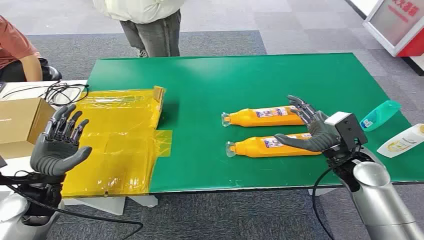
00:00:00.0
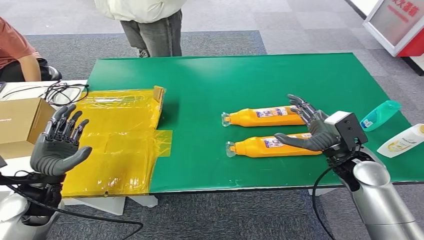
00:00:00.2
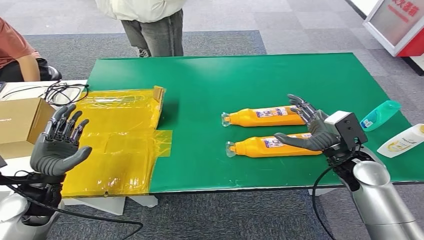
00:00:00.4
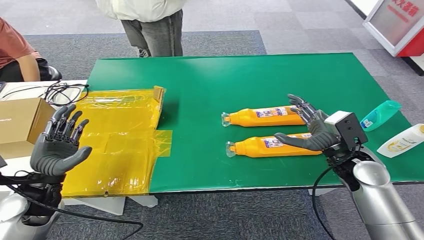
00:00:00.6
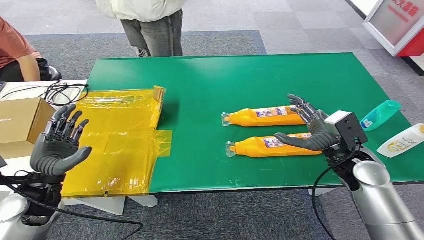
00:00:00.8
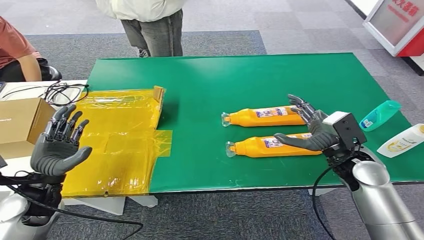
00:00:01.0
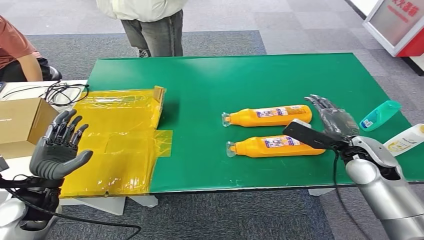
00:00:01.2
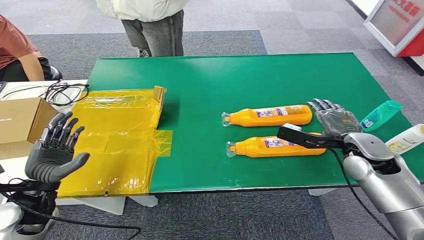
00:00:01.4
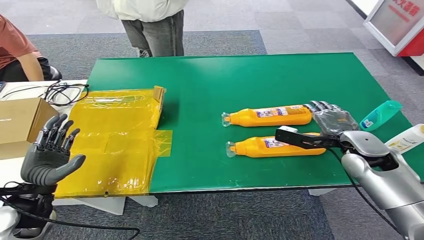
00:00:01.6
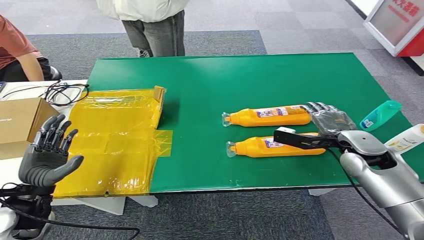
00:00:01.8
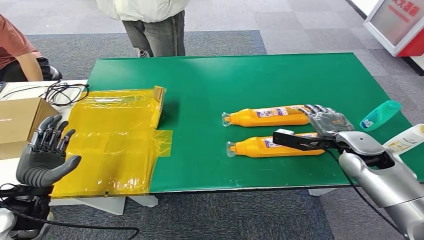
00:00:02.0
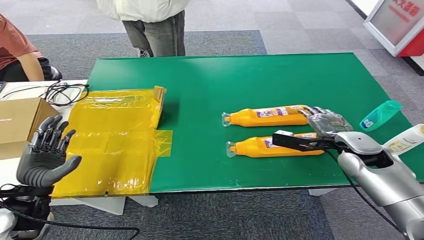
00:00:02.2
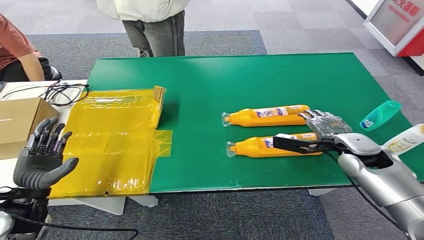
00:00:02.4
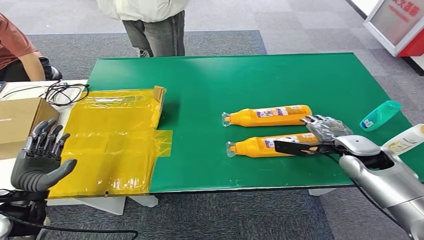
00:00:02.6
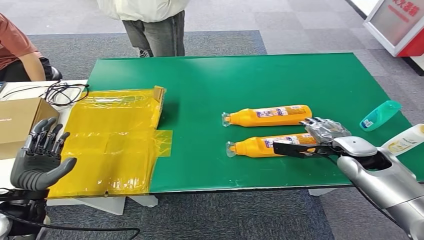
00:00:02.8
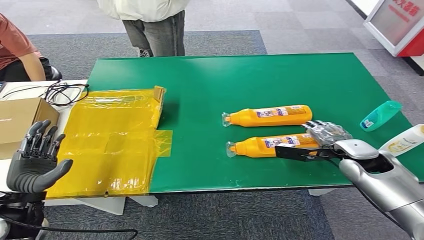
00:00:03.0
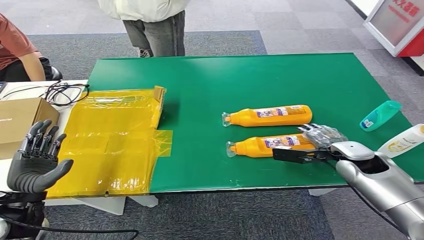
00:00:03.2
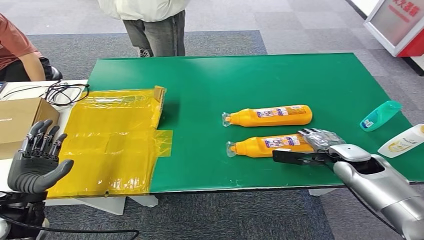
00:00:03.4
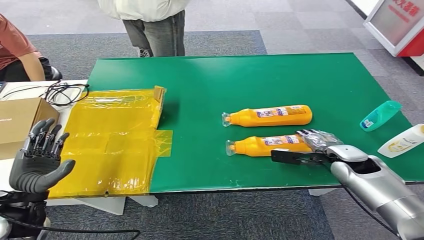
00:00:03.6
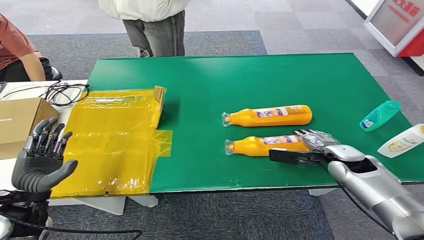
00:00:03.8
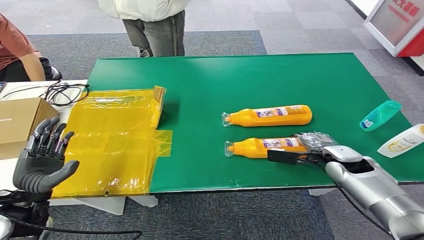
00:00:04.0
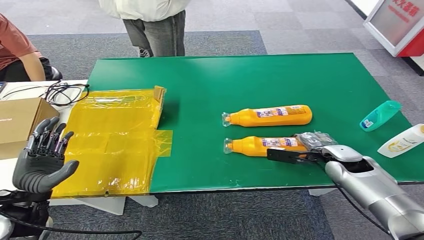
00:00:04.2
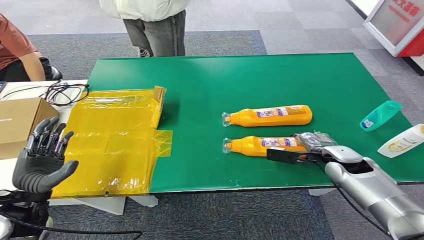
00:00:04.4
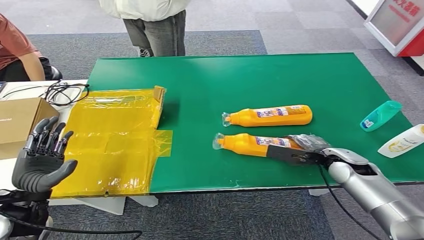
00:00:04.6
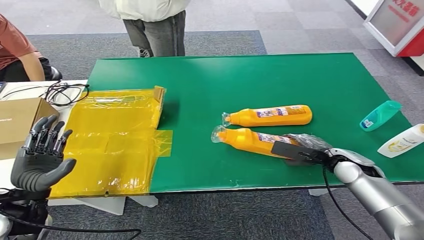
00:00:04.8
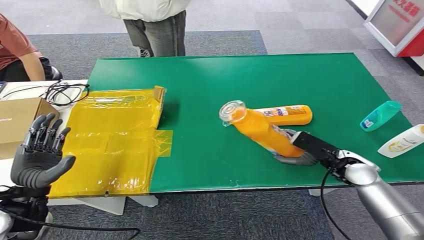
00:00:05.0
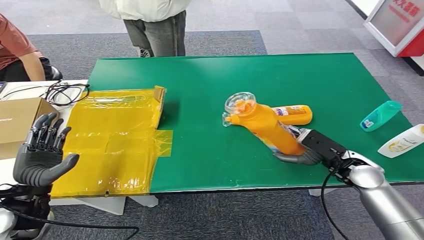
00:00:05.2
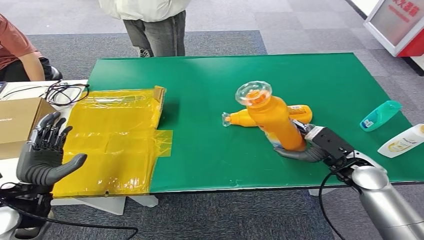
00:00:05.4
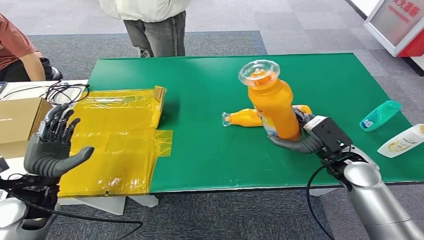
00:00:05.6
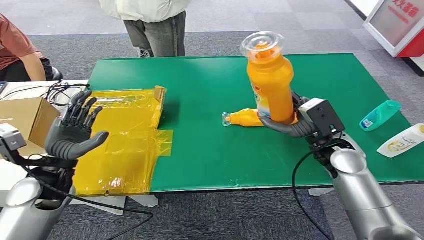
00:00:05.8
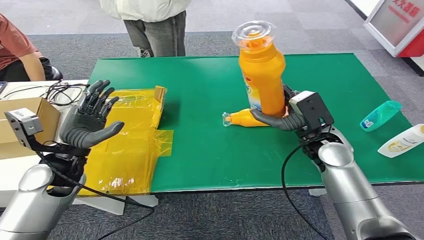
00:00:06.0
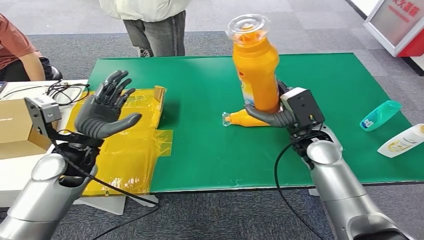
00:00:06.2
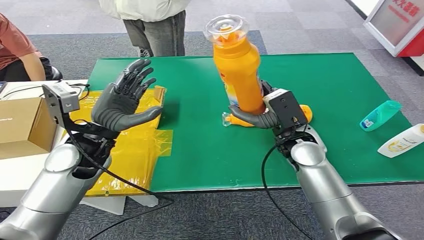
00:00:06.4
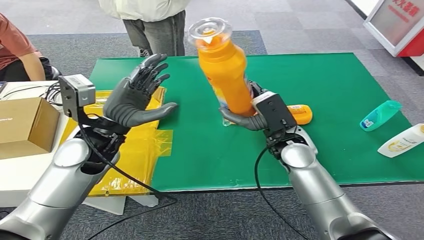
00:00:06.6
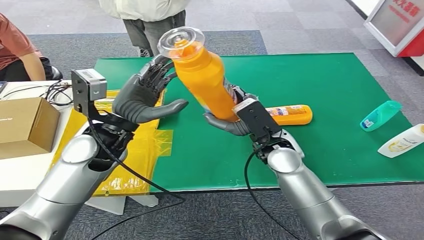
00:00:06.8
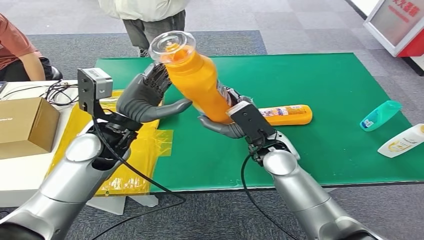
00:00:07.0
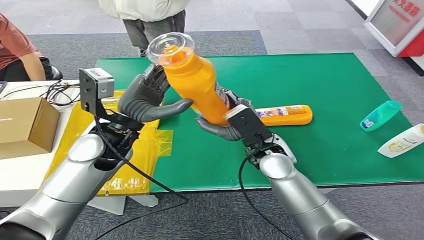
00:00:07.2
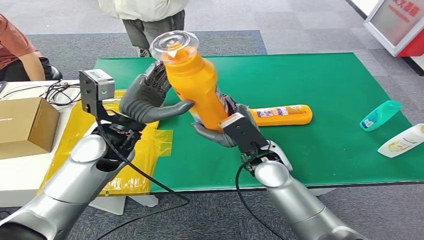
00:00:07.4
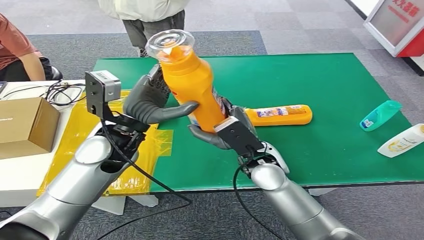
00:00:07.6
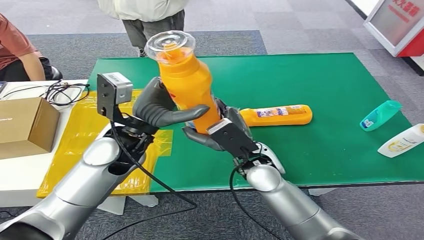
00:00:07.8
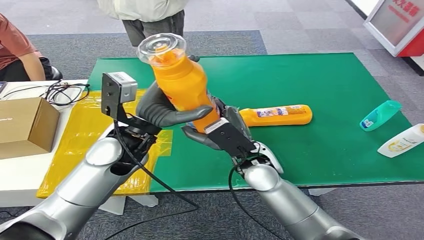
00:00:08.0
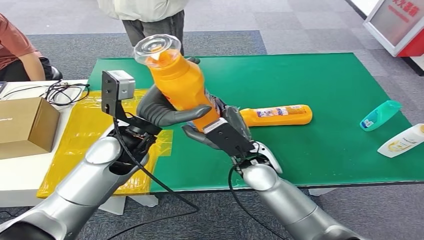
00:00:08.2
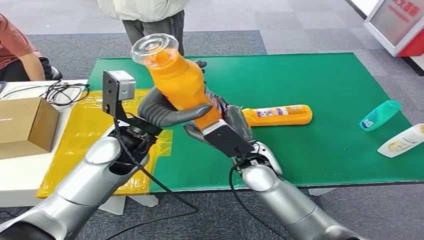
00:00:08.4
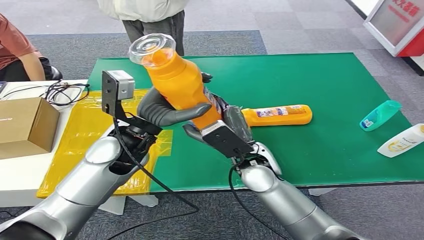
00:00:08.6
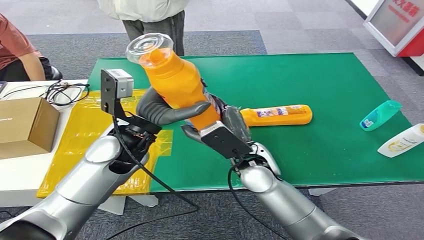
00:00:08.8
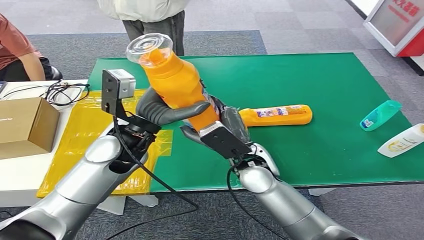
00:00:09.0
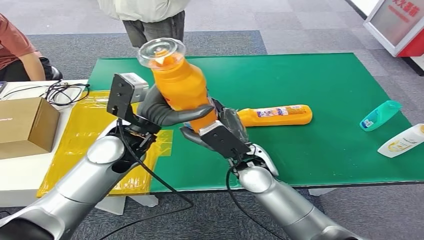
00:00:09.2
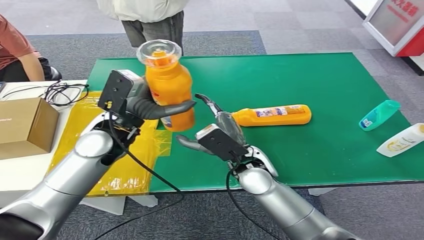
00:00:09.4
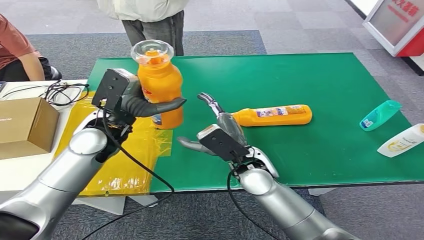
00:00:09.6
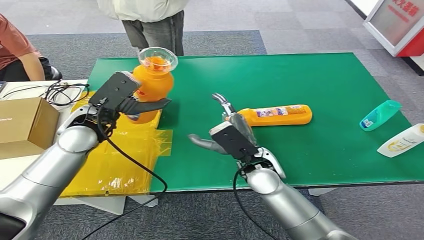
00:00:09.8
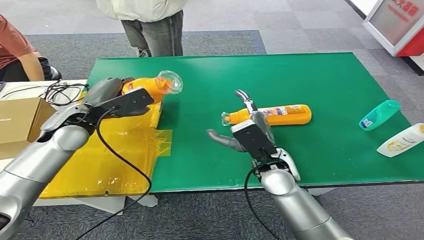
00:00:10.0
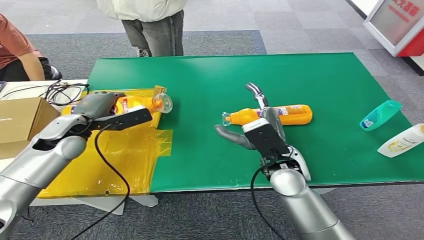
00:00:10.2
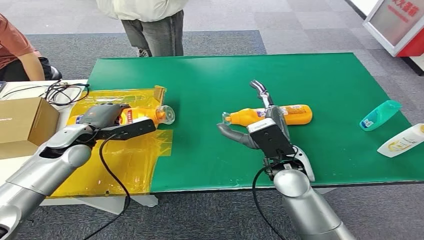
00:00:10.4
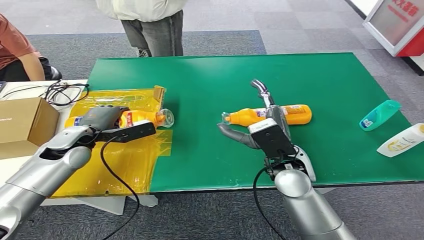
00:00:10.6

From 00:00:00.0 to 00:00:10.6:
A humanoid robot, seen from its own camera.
Step, from 00:00:00.0 to 00:00:06.4: Pick up the bottle from the table.
From 00:00:01.6 to 00:00:03.0: The hands stay close to where they were, moving slightly.
From 00:00:07.6 to 00:00:09.0: The hands stay close to where they were, moving slightly.

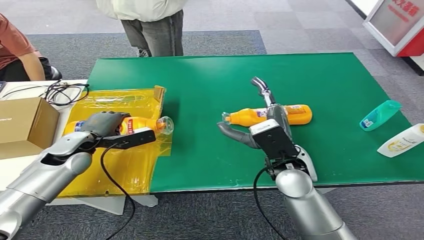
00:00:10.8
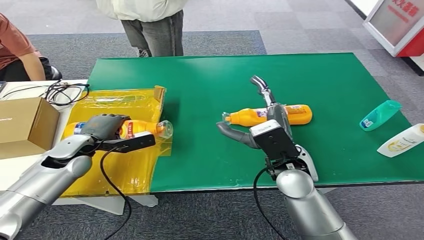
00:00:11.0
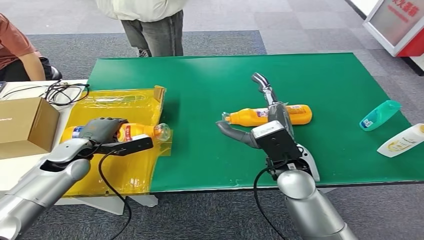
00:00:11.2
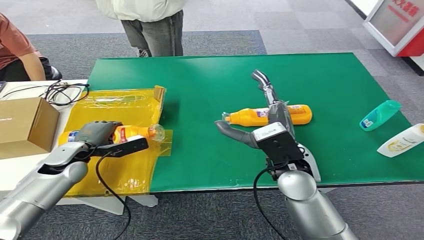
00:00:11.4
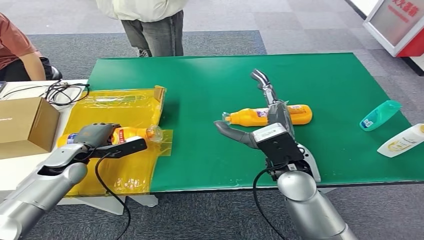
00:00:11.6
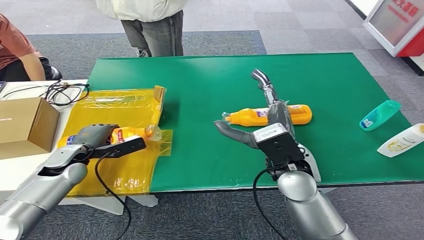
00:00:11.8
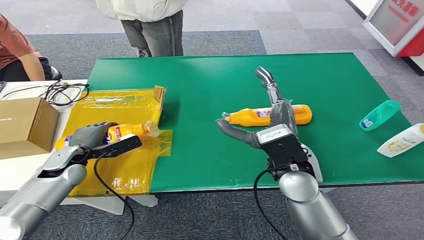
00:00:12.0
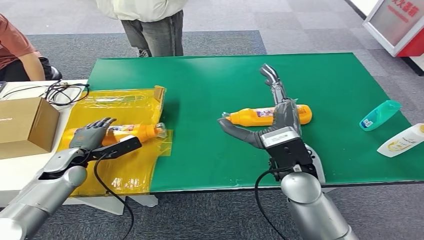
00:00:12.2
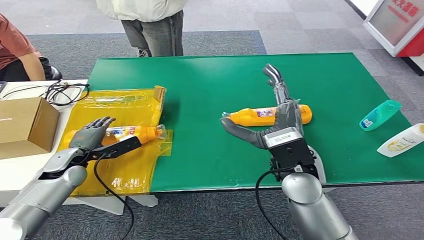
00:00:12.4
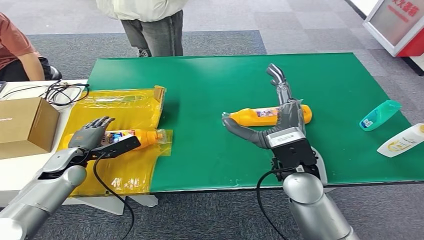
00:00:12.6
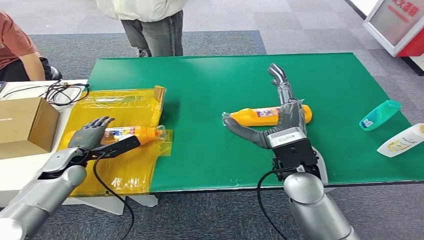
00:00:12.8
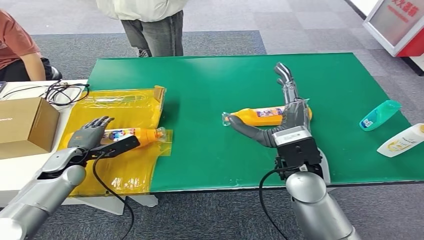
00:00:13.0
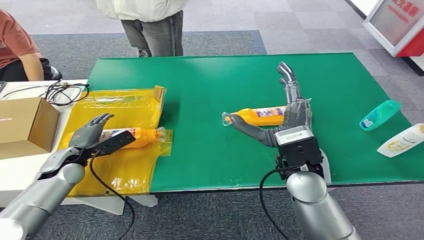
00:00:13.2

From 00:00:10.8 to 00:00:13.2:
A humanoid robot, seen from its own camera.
Step, from 00:00:10.8 to 00:00:13.2: Turn the bottle to the front side.
From 00:00:10.8 to 00:00:12.0: The left hand is displaced downward by approximately 5 cm.
From 00:00:12.0 to 00:00:13.2: There are only small adjustments of the hands.

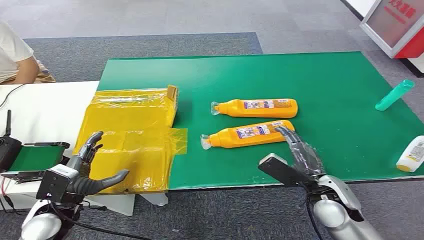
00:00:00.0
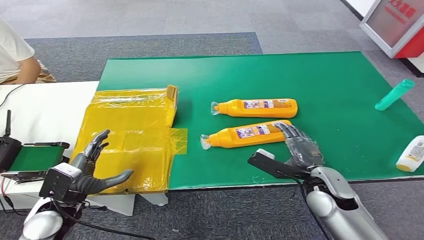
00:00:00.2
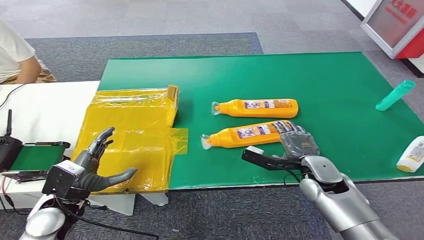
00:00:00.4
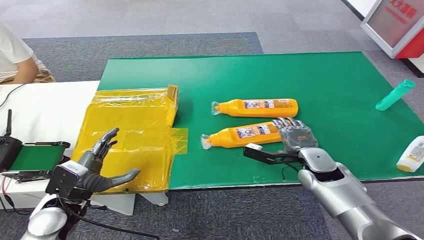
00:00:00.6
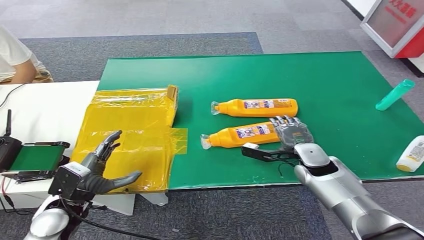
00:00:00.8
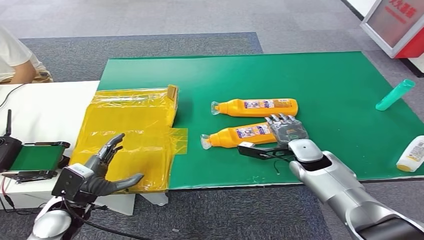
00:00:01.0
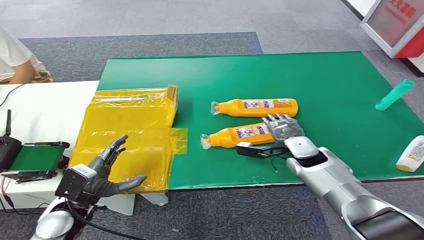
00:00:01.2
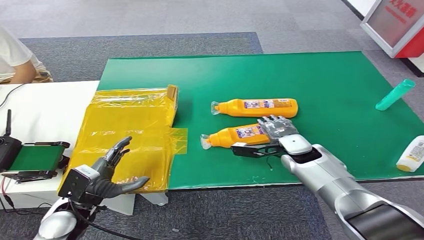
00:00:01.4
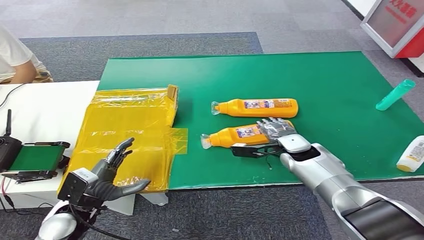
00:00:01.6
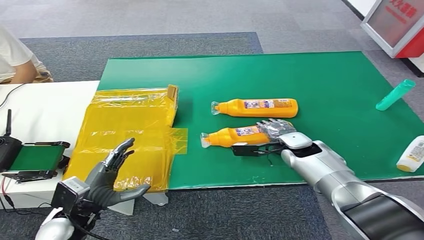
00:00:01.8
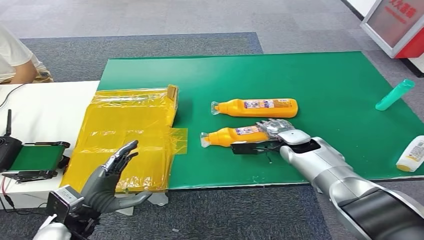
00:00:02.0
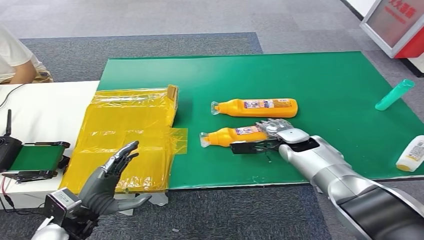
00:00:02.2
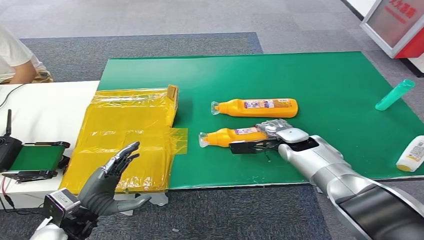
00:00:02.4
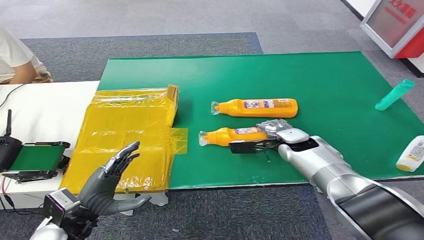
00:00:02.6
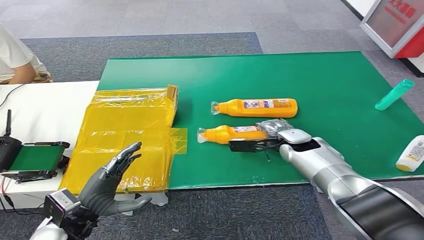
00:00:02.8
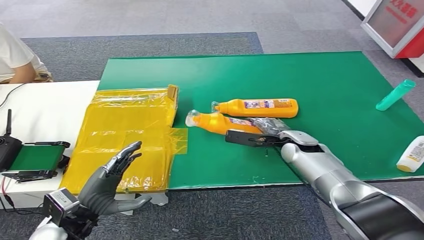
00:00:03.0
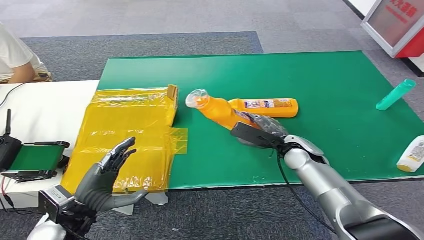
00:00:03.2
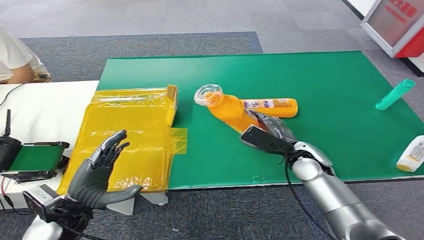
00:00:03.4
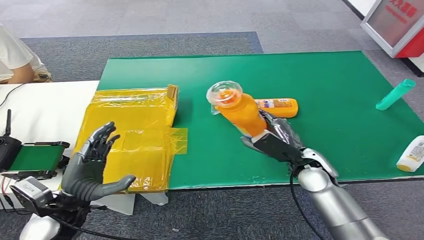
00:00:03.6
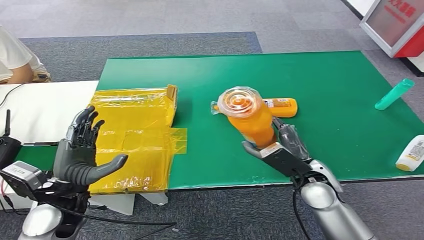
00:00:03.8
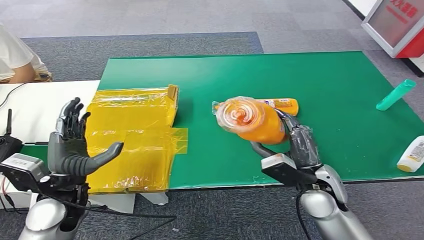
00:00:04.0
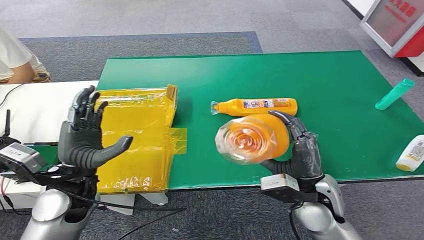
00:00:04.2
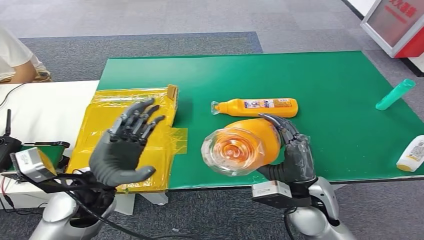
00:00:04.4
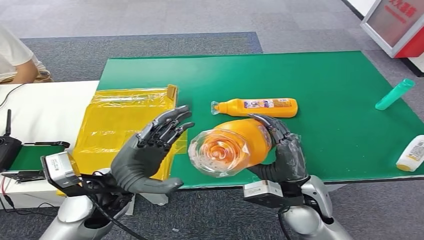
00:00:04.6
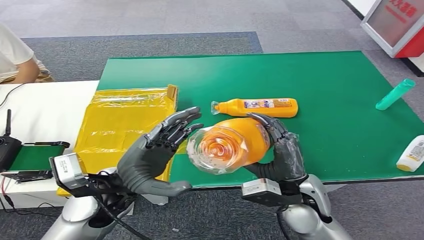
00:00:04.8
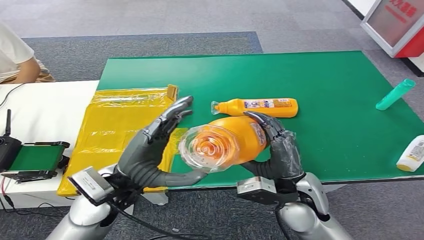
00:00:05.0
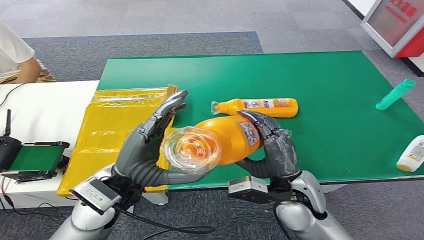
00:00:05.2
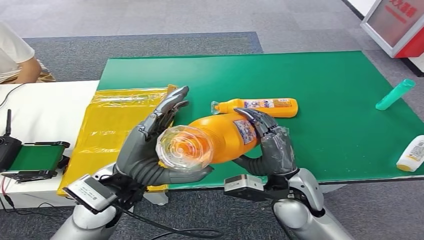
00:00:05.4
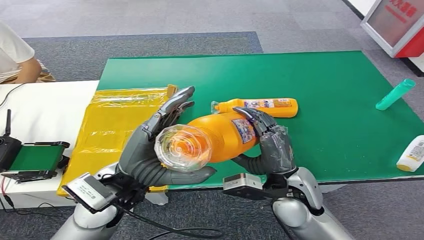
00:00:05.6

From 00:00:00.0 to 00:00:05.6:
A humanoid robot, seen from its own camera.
Step, from 00:00:00.0 to 00:00:03.6: Pick up the bottle from the table.
From 00:00:01.4 to 00:00:02.8: The hands stay close to where they were, moving slightly.
